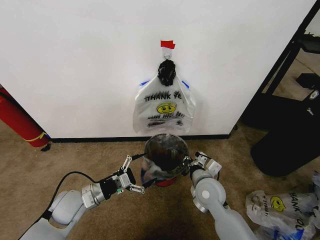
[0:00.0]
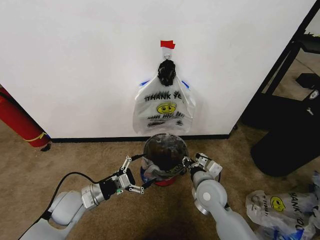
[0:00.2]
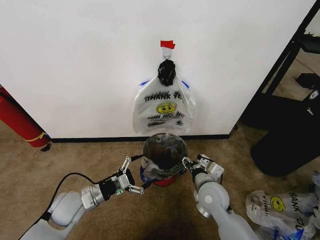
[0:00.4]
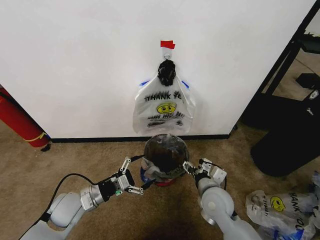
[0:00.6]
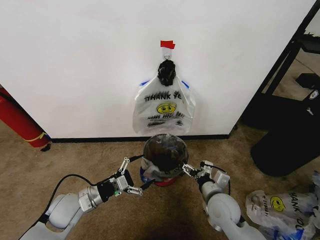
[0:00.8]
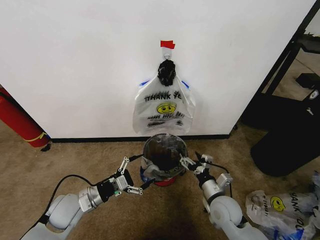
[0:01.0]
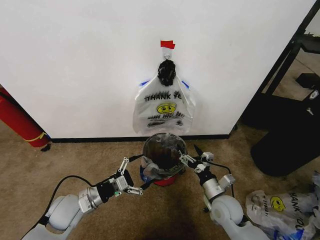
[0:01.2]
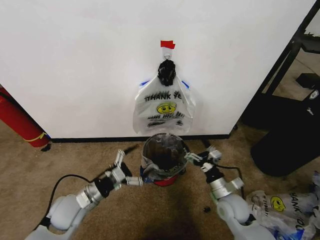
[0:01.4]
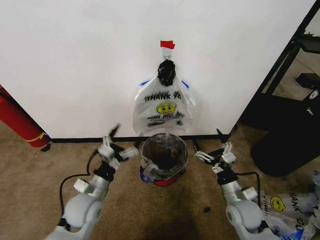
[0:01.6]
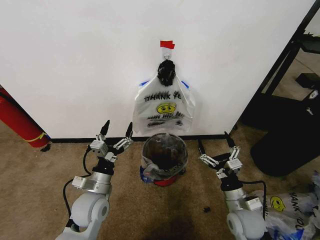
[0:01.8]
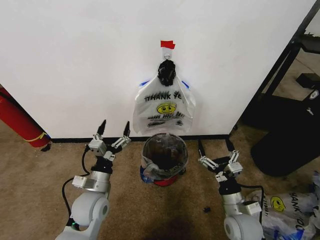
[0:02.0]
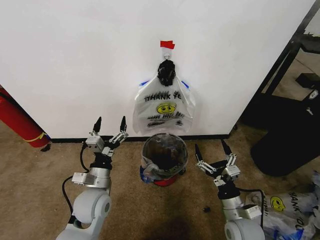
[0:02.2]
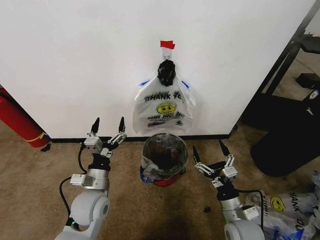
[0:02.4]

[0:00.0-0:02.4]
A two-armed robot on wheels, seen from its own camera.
Task of the whole recording: Pick up the garbage bag from the wall and place it over the trash bin.
0:00.0 to 0:01.2: The right gripper shifts roughly 10 cm to the right and downward, and opens.
0:01.2 to 0:02.4: The left gripper goes roughly 10 cm to the right. Meanwhile the right gripper is displaced backward by some 5 cm.

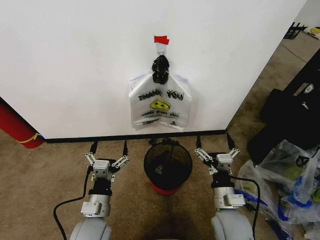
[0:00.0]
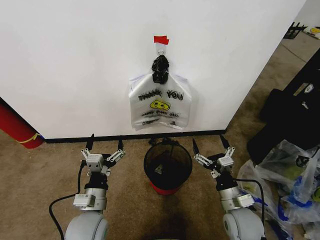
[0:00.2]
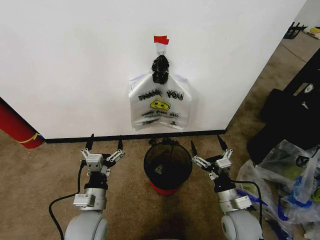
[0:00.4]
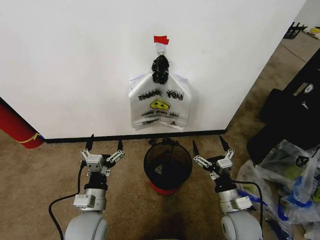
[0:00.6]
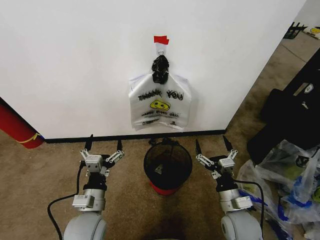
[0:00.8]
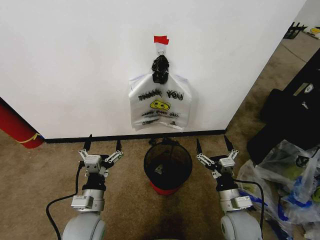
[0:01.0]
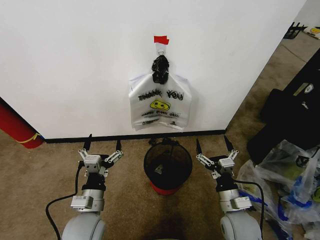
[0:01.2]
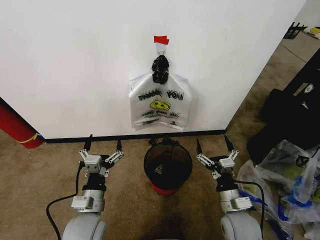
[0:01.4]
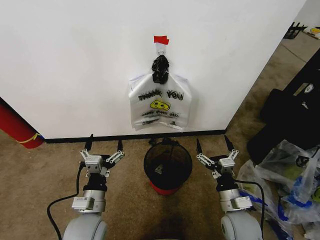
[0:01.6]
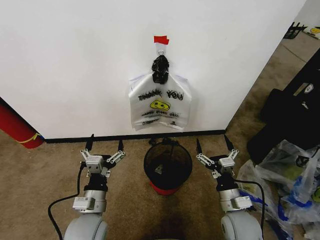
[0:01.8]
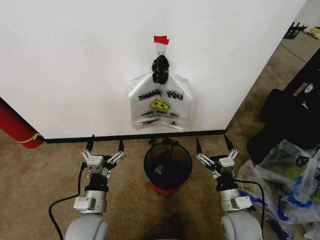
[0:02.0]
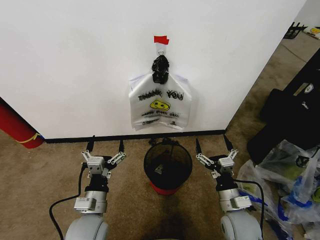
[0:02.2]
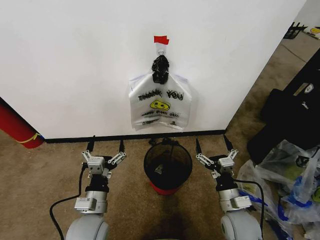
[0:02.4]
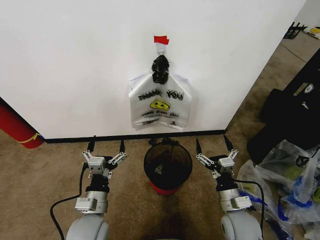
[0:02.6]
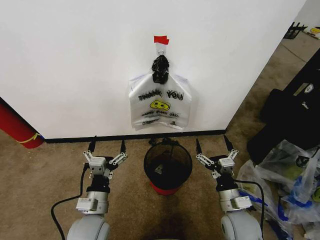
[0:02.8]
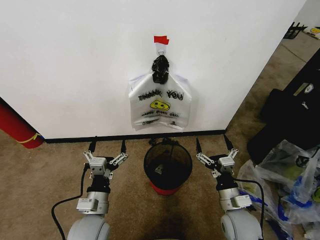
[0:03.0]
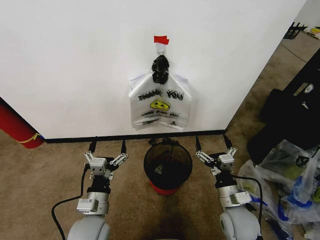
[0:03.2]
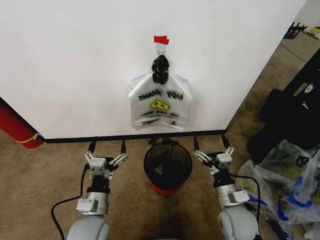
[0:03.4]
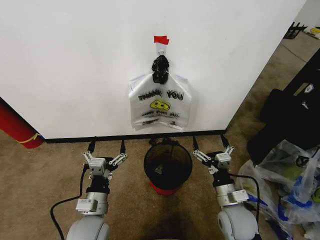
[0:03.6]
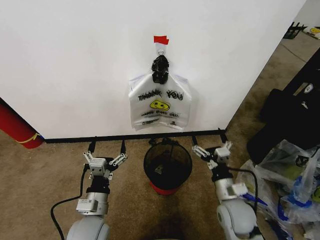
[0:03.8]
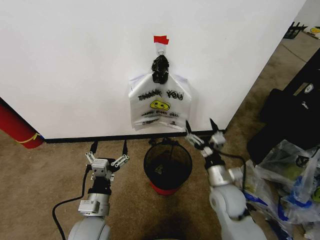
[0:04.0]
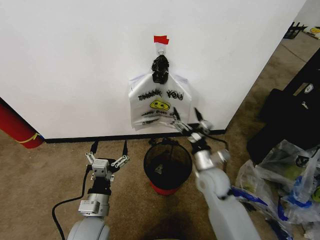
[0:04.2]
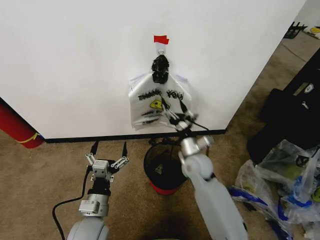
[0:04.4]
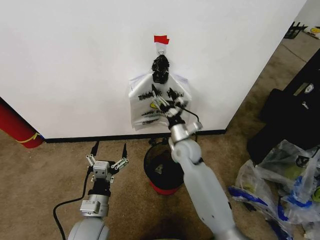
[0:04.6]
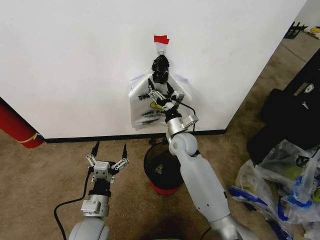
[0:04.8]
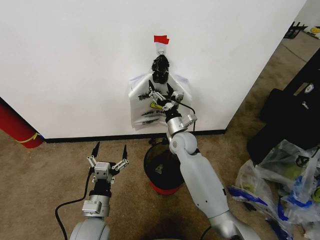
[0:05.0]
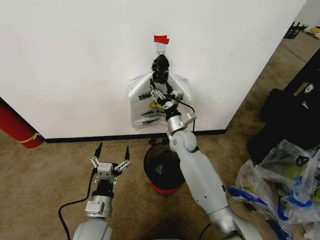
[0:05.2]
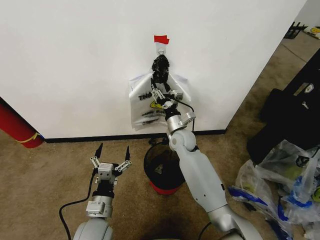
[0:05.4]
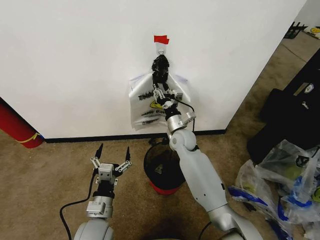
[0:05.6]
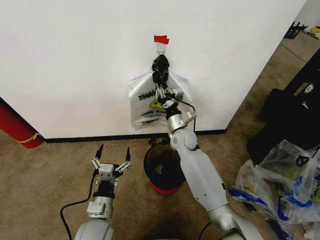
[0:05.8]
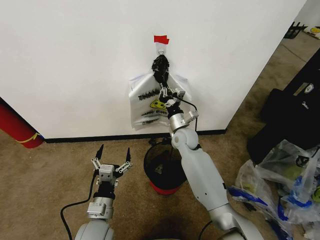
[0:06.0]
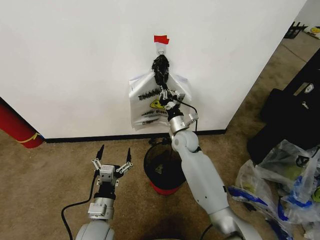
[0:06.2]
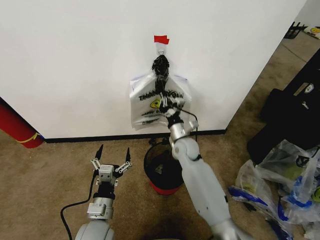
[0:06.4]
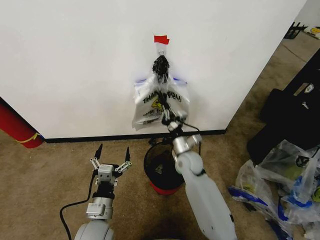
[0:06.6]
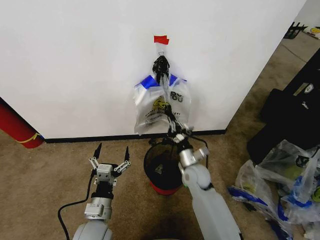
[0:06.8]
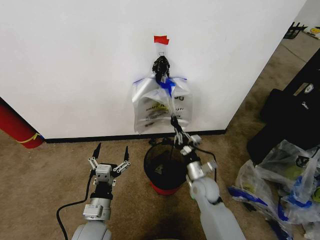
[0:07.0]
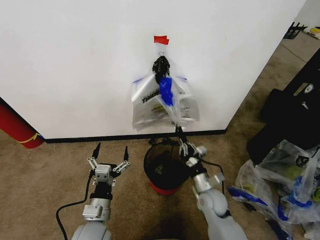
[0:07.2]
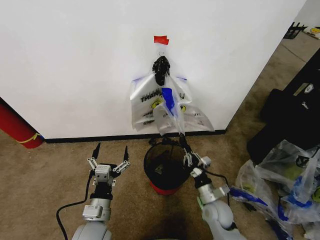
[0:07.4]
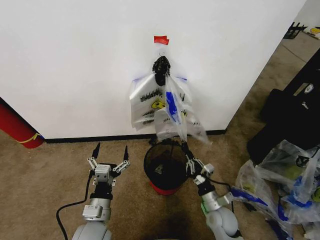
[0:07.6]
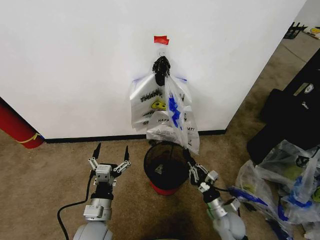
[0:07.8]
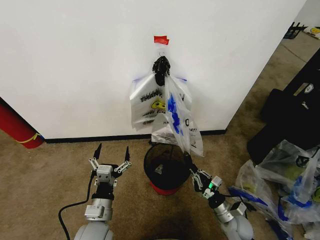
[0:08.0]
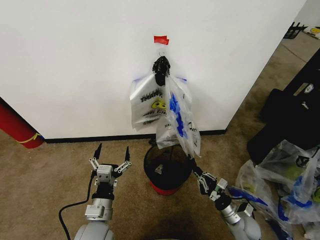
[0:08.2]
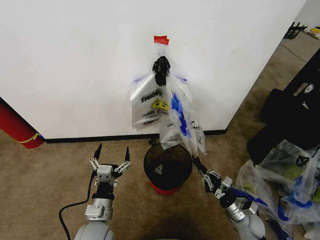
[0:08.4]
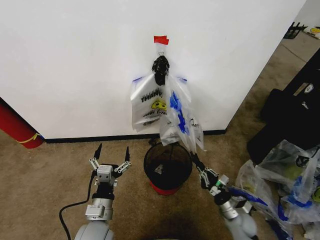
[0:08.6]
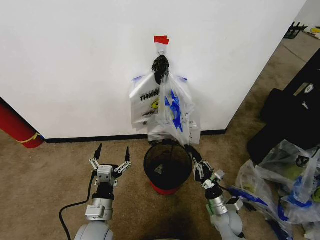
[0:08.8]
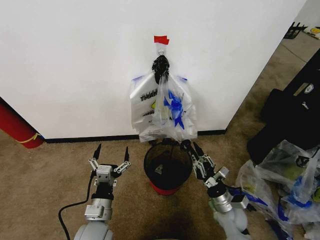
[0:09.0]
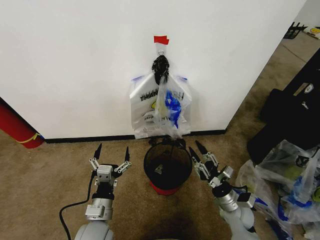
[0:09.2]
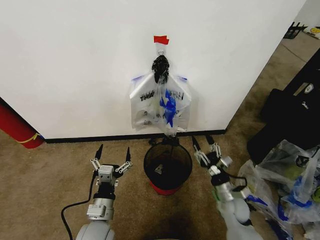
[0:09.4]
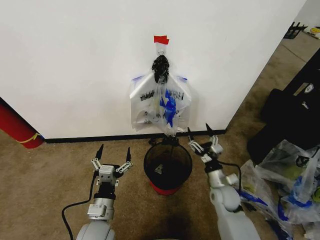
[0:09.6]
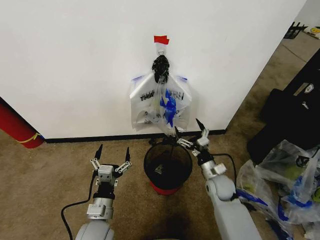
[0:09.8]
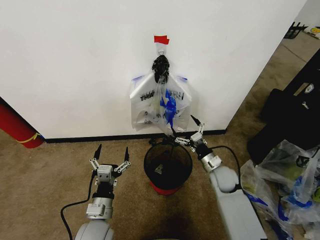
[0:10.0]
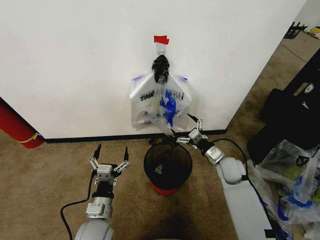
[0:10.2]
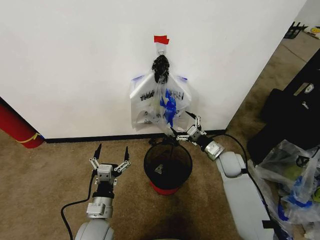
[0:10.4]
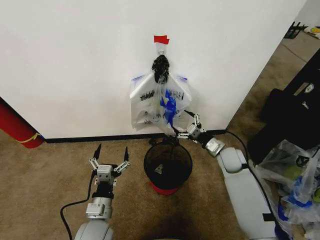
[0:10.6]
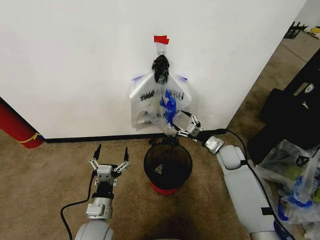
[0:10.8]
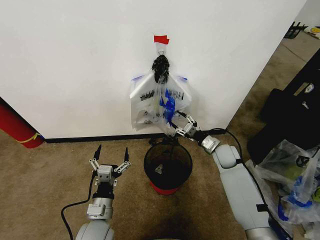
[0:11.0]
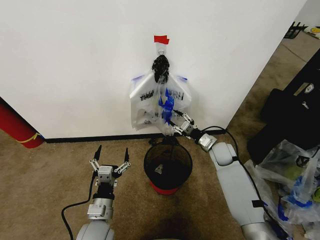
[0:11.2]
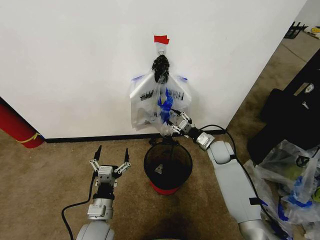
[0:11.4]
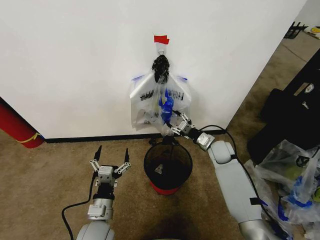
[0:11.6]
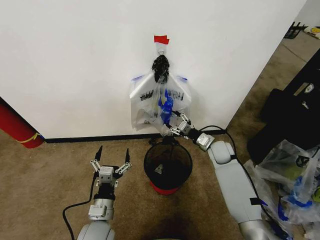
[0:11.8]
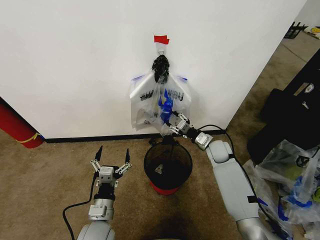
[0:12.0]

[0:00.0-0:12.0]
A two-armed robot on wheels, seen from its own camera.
Task of the whole recording: Pick up the garbage bag from the wall and place it over the trash bin.
0:01.6 to 0:03.0: The two grippers keep their place.
0:03.0 to 0:04.4: The right gripper goes about 20 cm forward and to the left.
0:04.4 to 0:06.0: The right gripper moves forward, some 10 cm, and closes its fingers.
0:06.0 to 0:07.6: The right gripper moves backward, downward and to the right, roughly 30 cm.
0:07.6 to 0:09.0: The right gripper travels to the right and back again, roughly 10 cm each way.
0:09.0 to 0:10.4: The right gripper travels forward and upward by about 15 cm, and opens up.
0:10.4 to 0:12.0: The right gripper travels forward by about 10 cm, and closes its fingers.

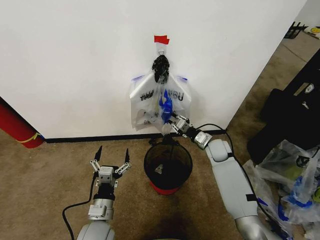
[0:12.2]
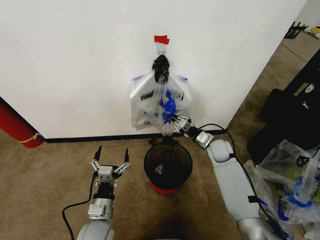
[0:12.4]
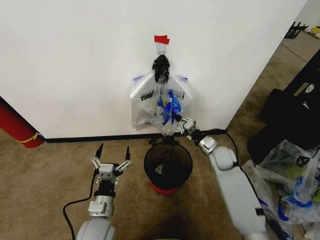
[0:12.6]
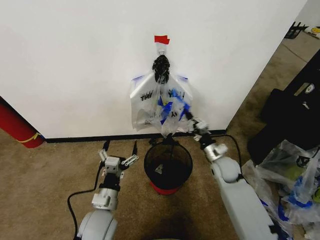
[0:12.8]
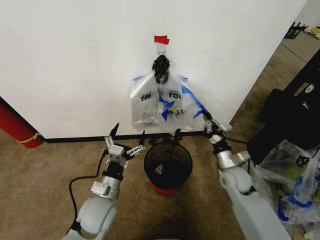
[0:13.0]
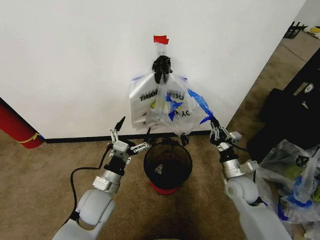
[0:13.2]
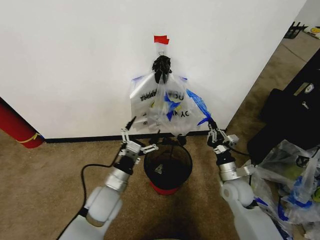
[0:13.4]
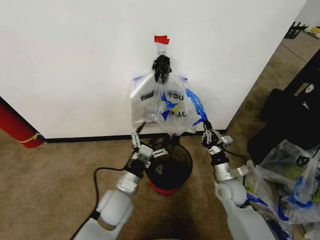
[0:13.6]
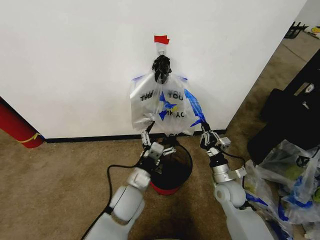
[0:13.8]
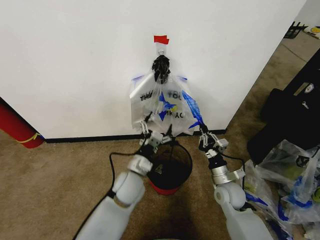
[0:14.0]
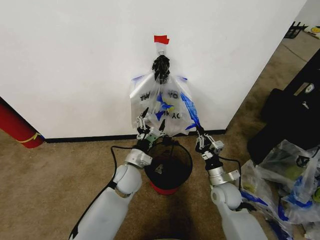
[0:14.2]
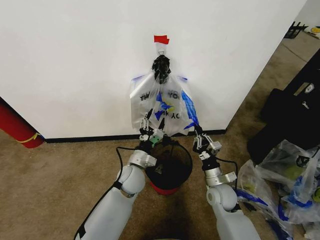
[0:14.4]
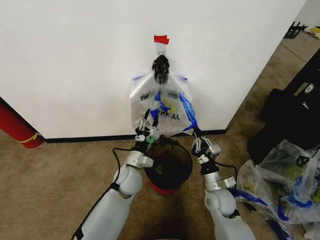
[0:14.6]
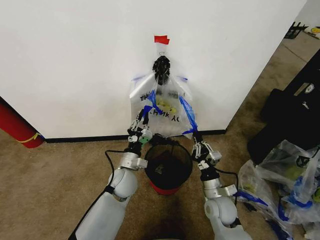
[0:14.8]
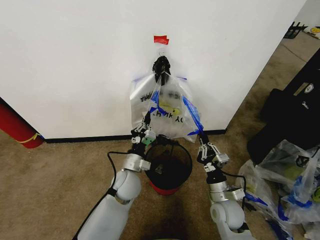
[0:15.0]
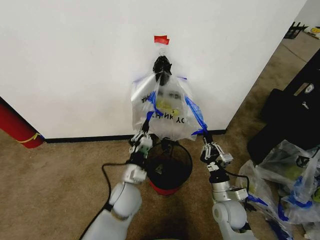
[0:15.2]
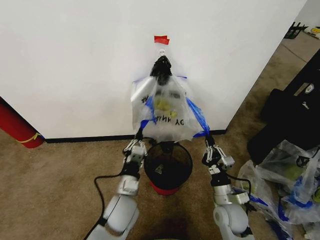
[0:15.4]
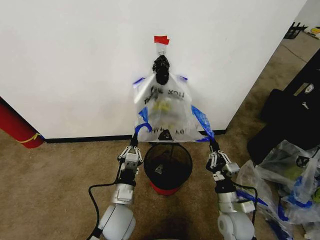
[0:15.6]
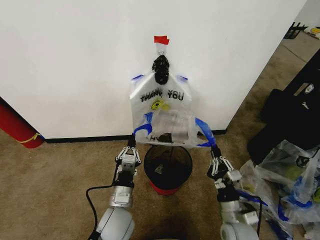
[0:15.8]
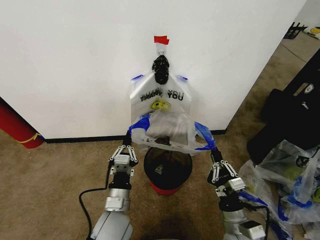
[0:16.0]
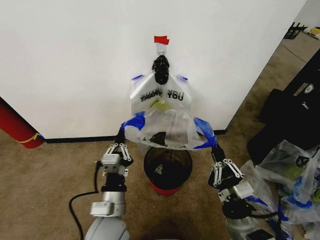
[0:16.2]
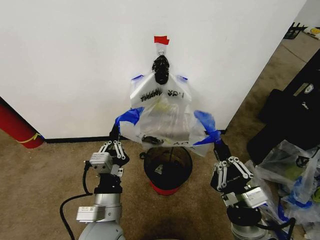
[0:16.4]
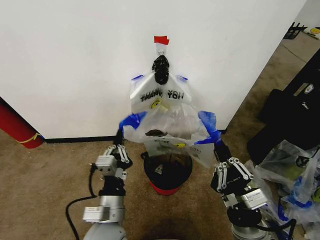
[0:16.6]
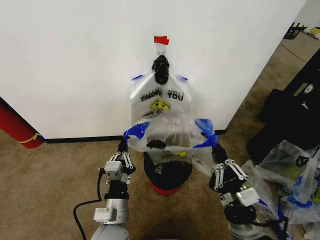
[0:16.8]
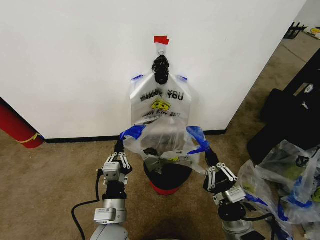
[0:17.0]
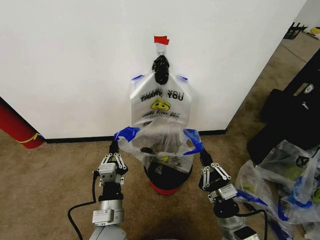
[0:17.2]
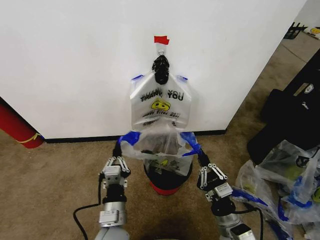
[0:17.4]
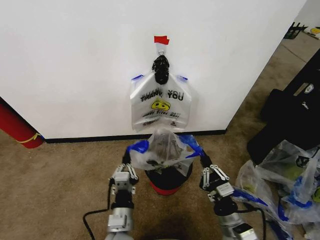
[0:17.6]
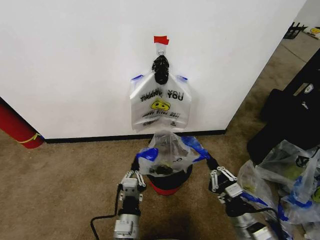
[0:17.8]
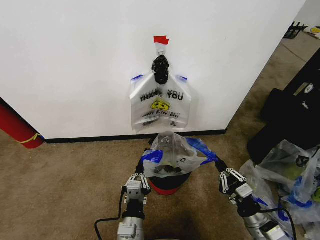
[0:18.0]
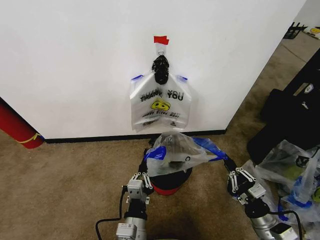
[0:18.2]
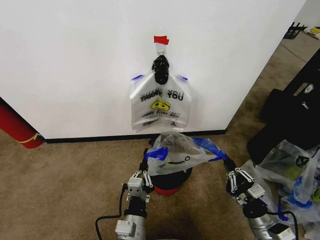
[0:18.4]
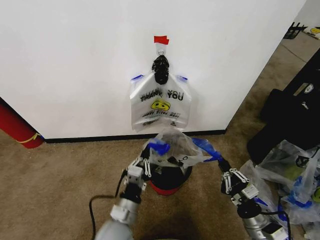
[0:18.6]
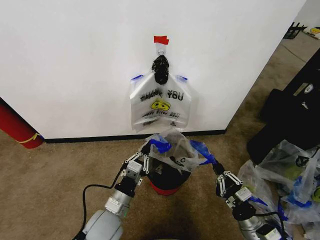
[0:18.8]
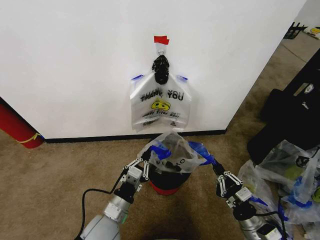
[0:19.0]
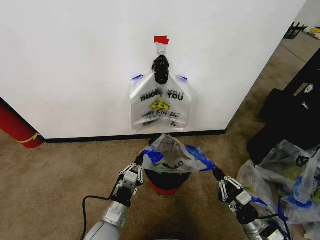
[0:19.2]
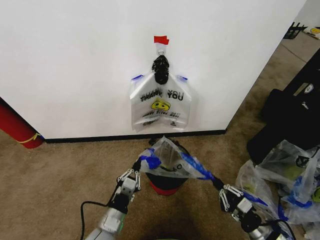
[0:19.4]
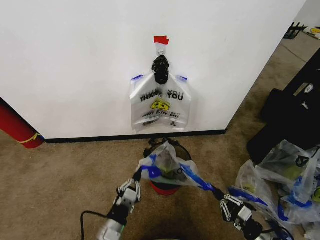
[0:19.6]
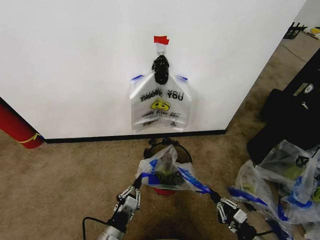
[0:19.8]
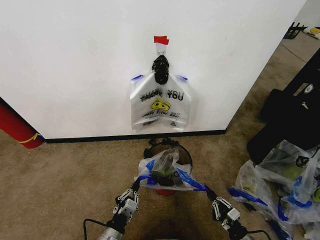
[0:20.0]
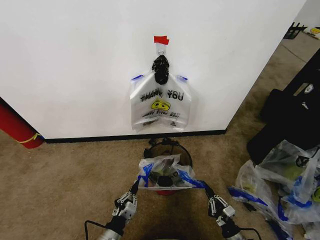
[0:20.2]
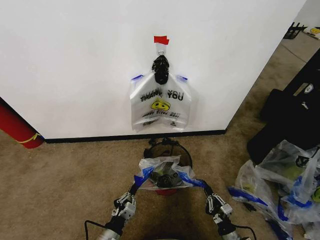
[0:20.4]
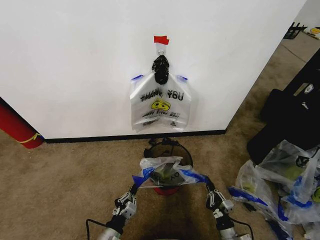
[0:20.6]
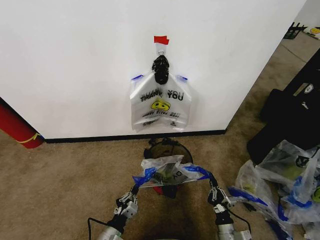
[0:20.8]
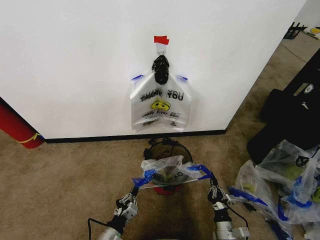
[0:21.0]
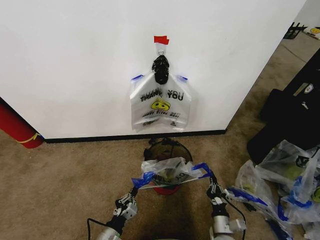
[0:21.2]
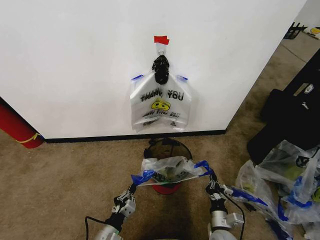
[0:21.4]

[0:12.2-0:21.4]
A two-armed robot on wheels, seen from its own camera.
Task of the whole recording: Pick up the garbage bag from the wall and place it over the trash bin.
0:12.2 to 0:13.8: The left gripper moves forward and to the right, about 10 cm, while the right gripper heads backward, covering approximately 15 cm.
0:13.8 to 0:15.2: The right gripper travels backward by approximately 5 cm. The left gripper reaches about 10 cm forward, then returns, and closes up.
0:15.2 to 0:16.8: The right gripper shifts some 15 cm backward and upward, while the left gripper shifts about 10 cm backward.
0:16.8 to 0:18.4: The left gripper moves approximately 5 cm. The right gripper is displaced to the right and downward by some 15 cm.
0:18.4 to 0:19.8: The right gripper shifts roughly 10 cm downward. Meanwhile the left gripper goes some 15 cm to the left and downward.
0:19.8 to 0:21.4: The right gripper goes some 15 cm to the left and forward. The left gripper moves roughly 5 cm.
